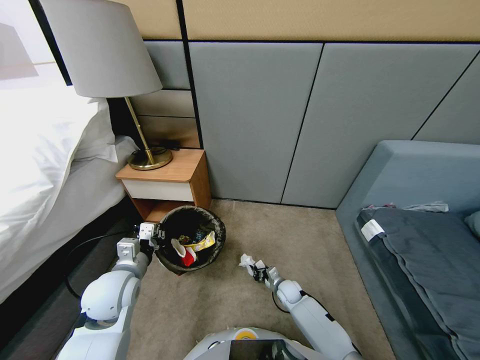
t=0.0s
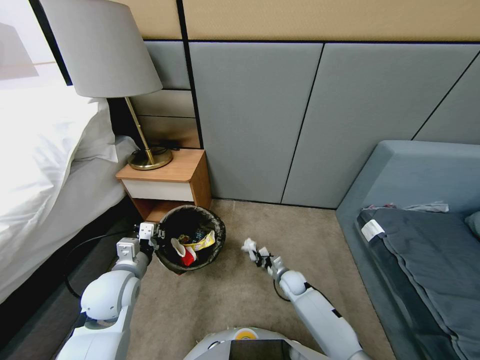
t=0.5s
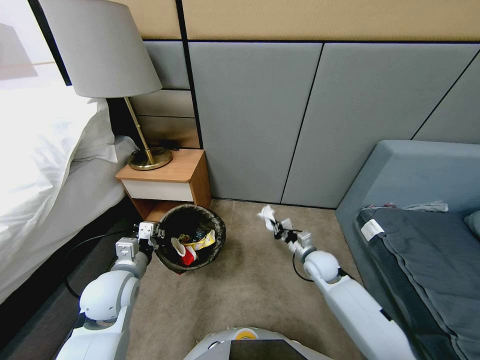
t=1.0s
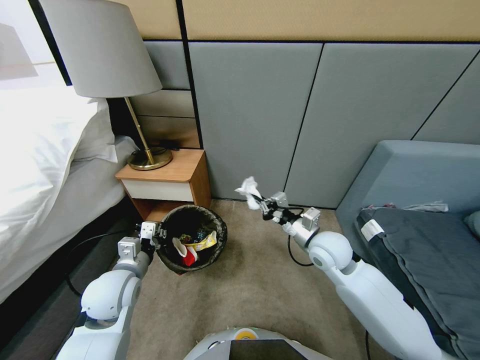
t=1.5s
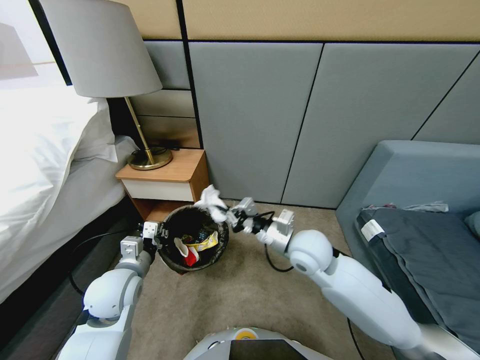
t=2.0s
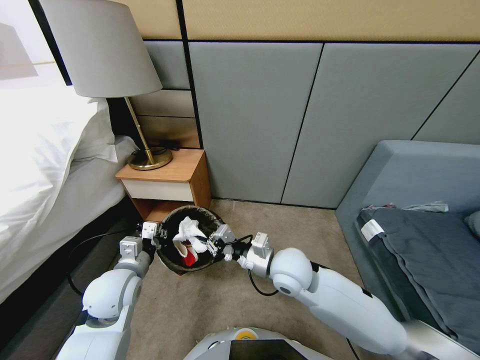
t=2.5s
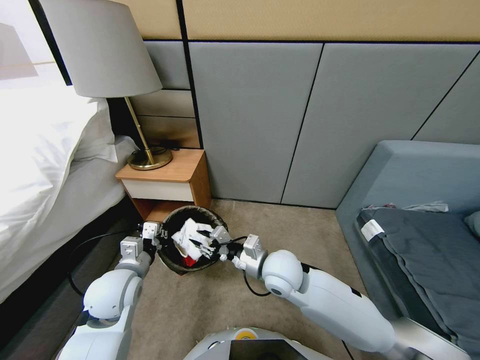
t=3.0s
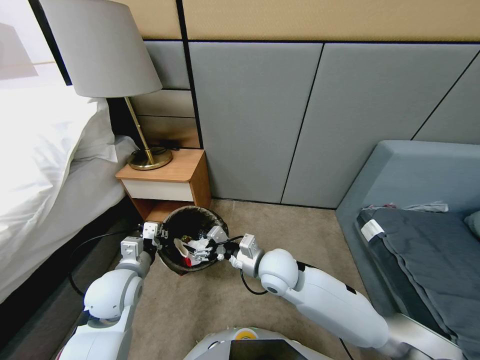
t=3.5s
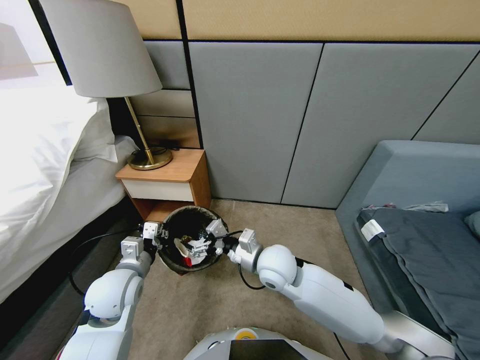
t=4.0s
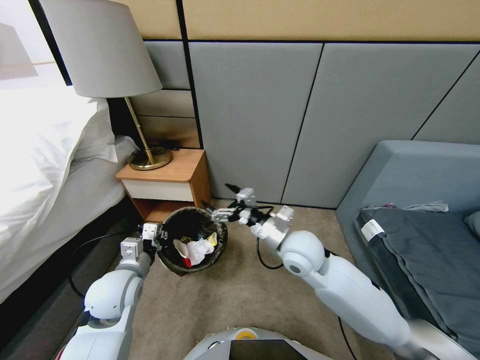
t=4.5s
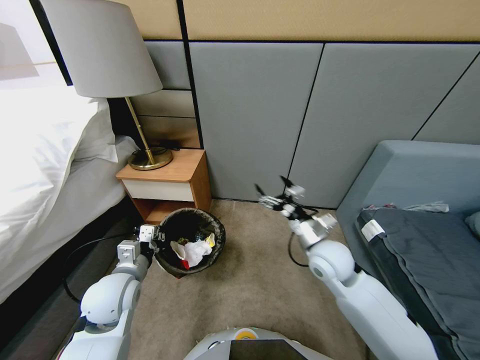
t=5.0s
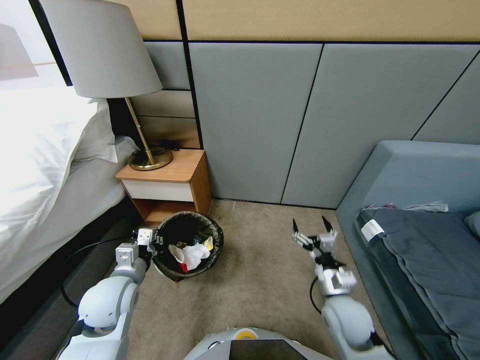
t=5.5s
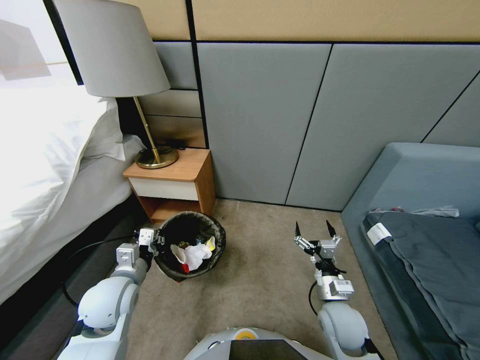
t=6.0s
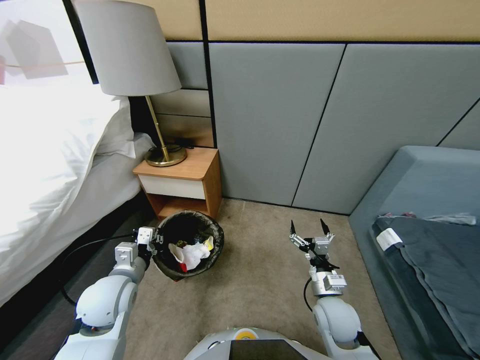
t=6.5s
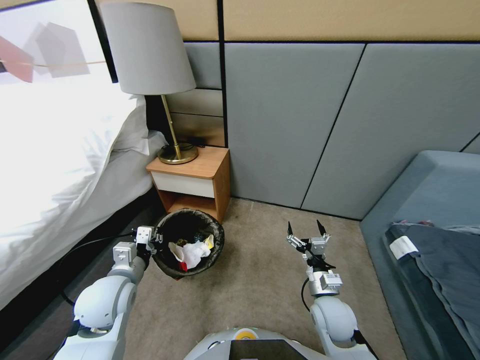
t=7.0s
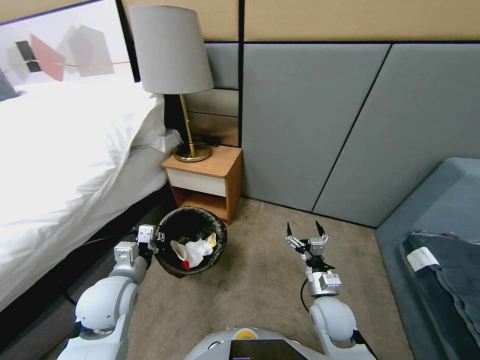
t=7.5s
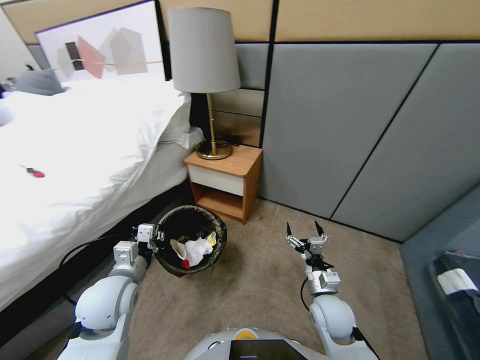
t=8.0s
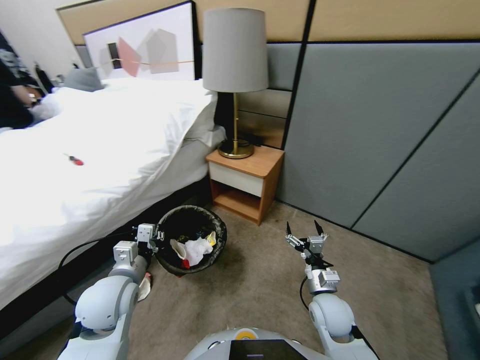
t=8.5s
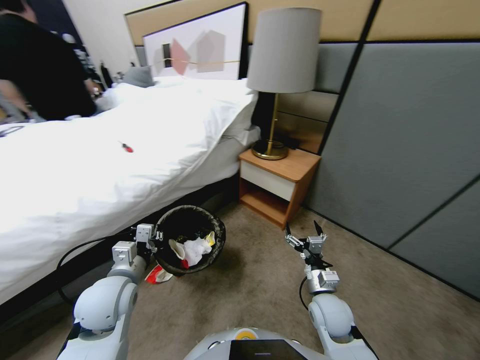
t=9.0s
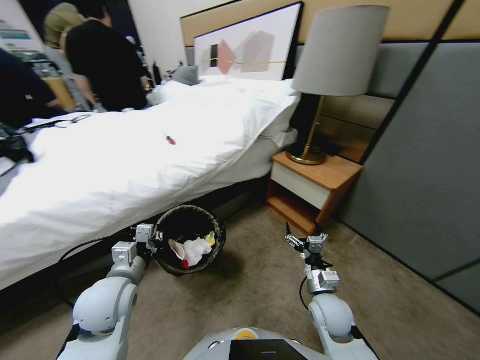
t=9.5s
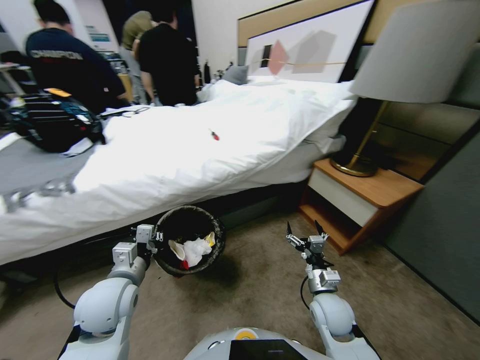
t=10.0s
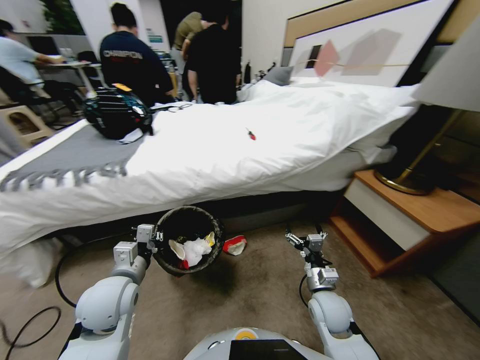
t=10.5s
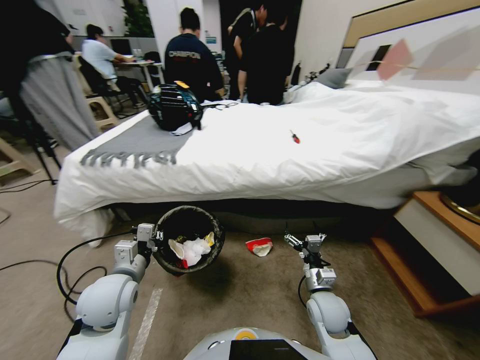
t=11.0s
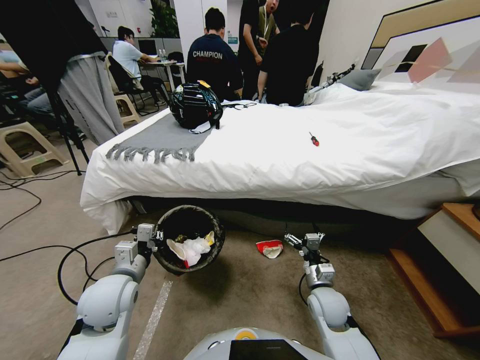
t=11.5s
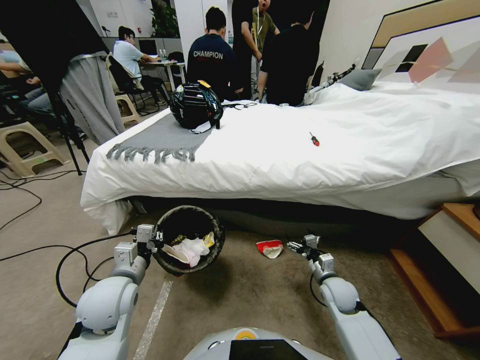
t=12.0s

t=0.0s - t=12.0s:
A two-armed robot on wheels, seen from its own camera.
Task of the whole recording: Pick up the trash bin, then pick up the garbage from the floor and place it into the trash bin.
t=0.0s - t=2.0s: The right gripper shifts about 35 cm upward.
t=2.0s - t=4.0s: The right gripper shifts by approximately 5 cm, and opens.
t=4.0s - t=6.0s: The right gripper travels to the right, downward and backward by some 20 cm.
t=10.0s - t=12.0s: The right gripper goes about 10 cm to the right and forward.

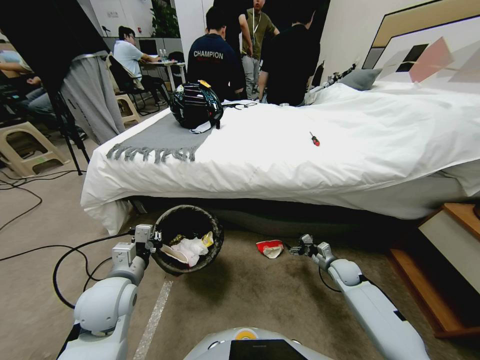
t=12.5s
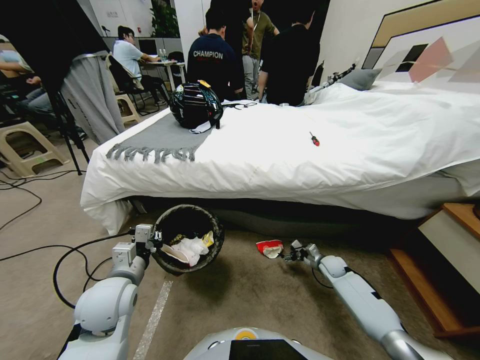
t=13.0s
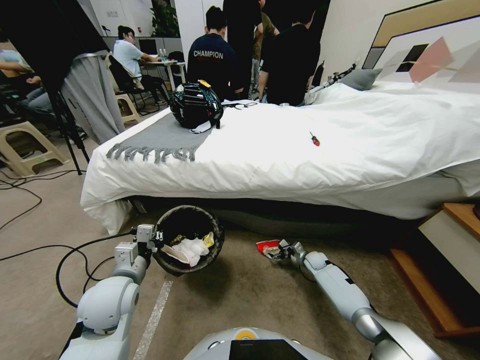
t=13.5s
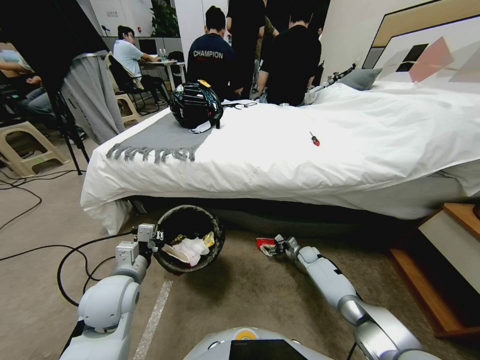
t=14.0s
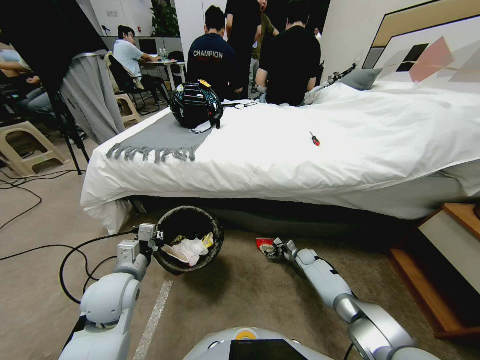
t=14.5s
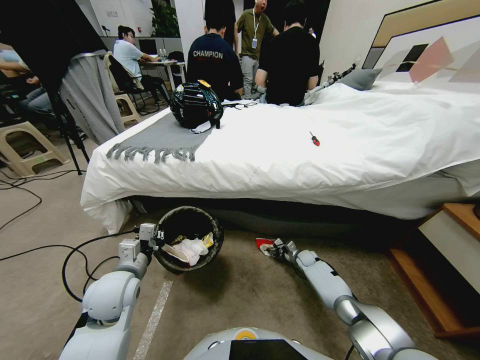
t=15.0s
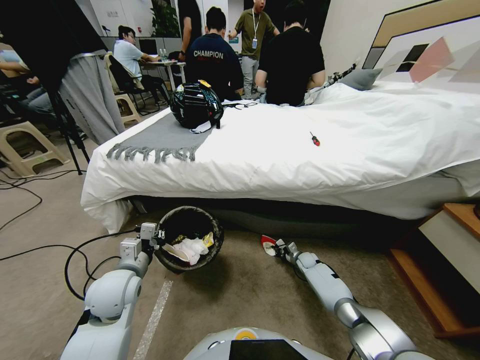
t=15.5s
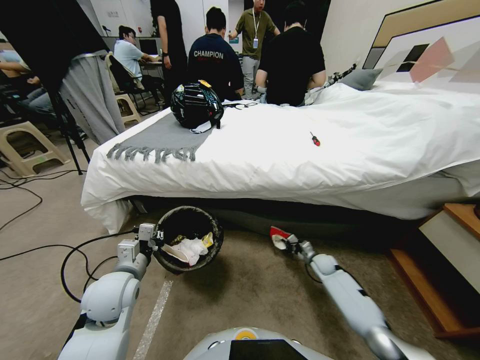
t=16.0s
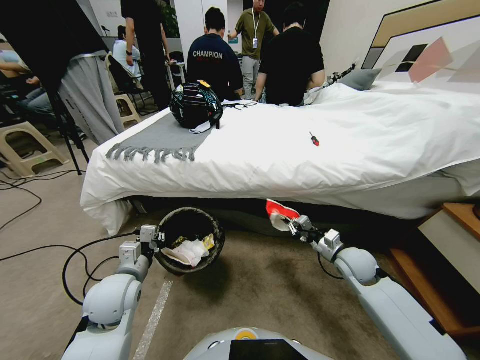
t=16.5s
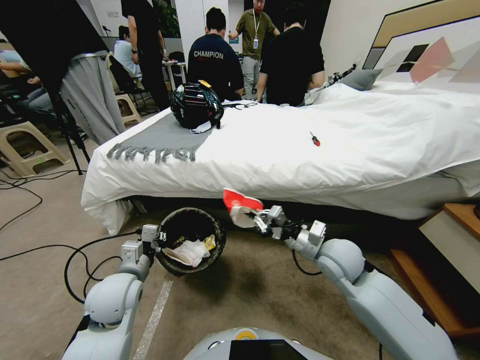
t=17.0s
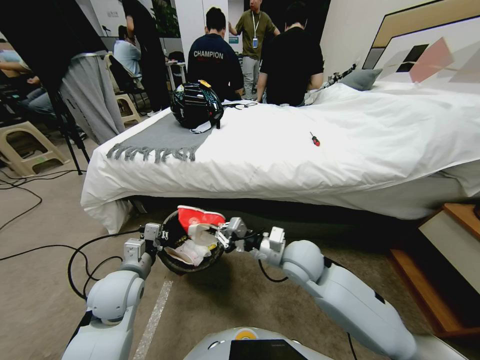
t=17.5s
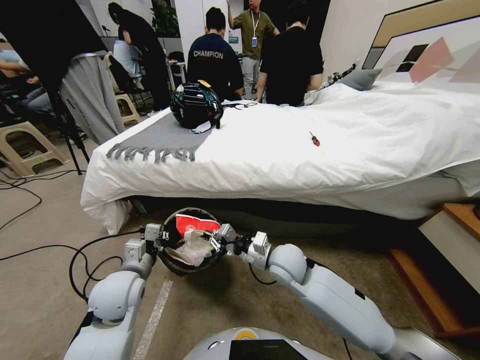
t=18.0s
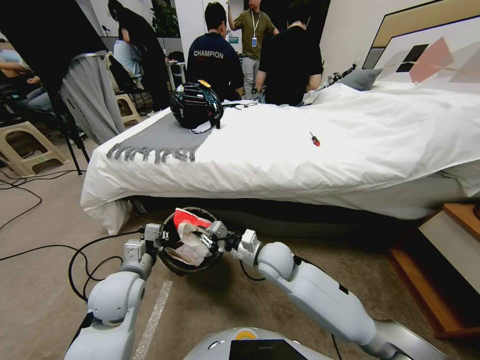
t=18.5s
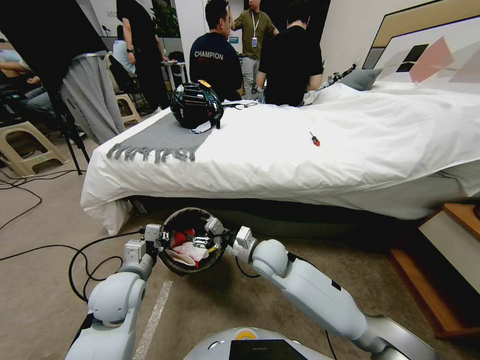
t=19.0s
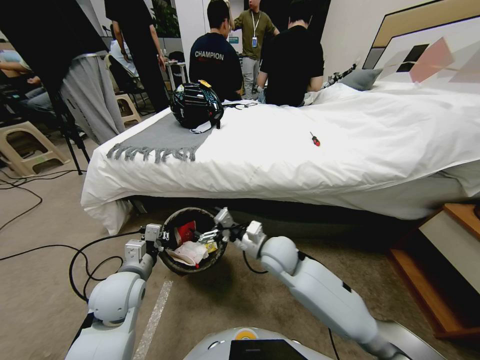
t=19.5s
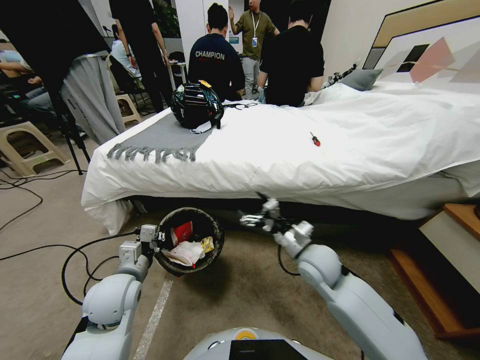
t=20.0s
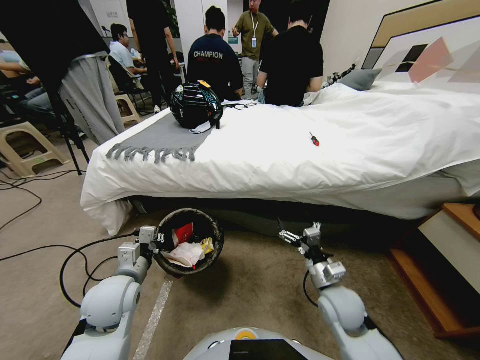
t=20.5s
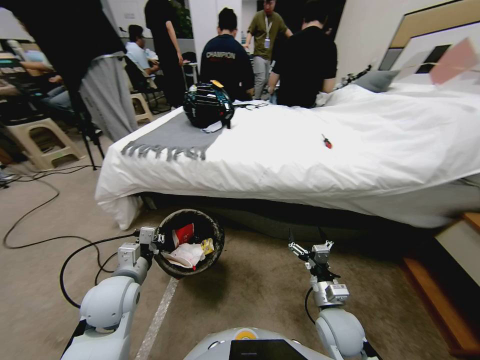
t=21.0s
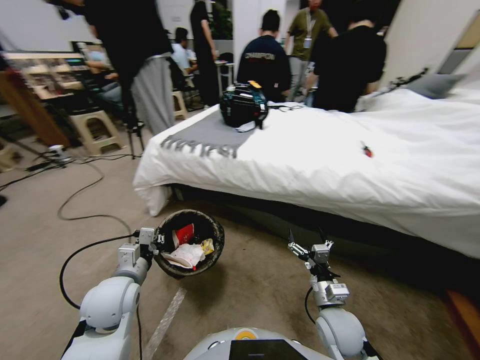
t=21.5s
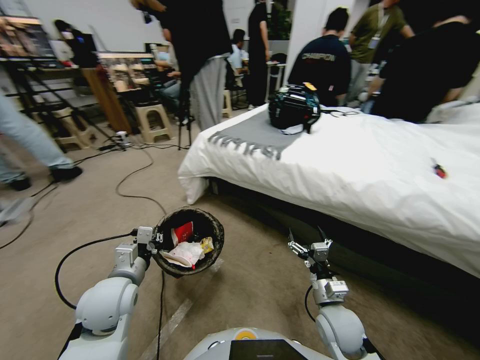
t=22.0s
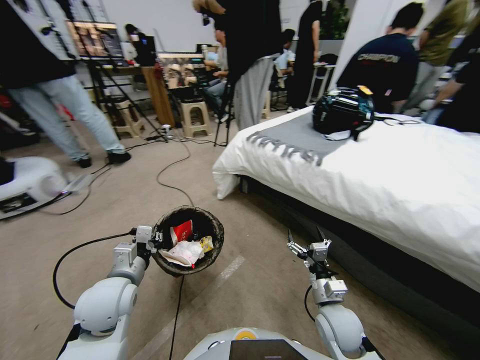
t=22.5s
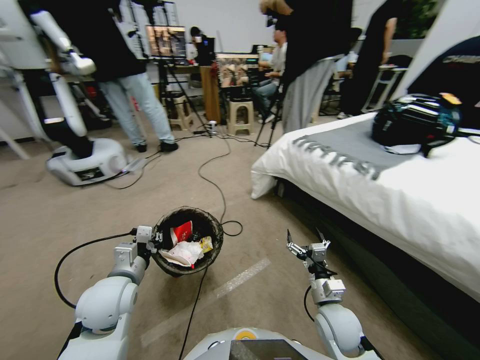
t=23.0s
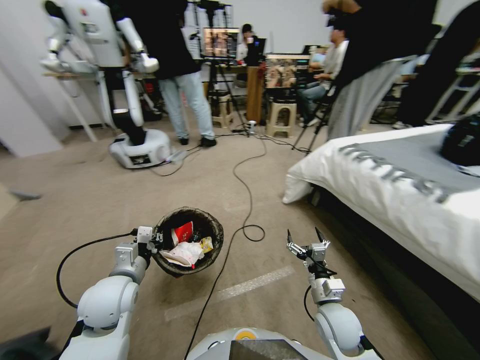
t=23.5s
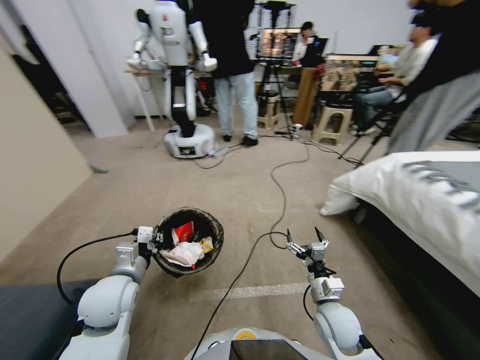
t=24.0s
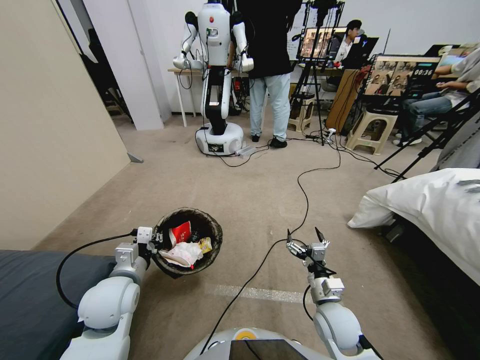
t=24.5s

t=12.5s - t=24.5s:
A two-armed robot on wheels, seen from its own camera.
Task of the whole recording: Pick up the trash bin, then pick up the garbage from the floor and place it into the trash bin.
t=12.5s - t=14.5s: The right gripper is displaced downward, forward and to the left by roughly 15 cm.
t=14.5s - t=16.5s: The right gripper goes roughly 30 cm upward and backward, and closes its fingers.
t=16.5s - t=18.5s: The right gripper goes some 25 cm to the left.
t=18.5s - t=20.5s: The right gripper goes about 20 cm to the right, backward and downward, and opens.

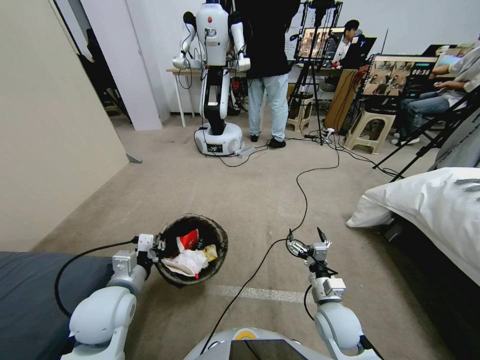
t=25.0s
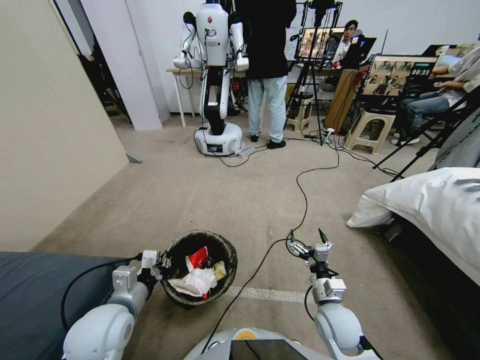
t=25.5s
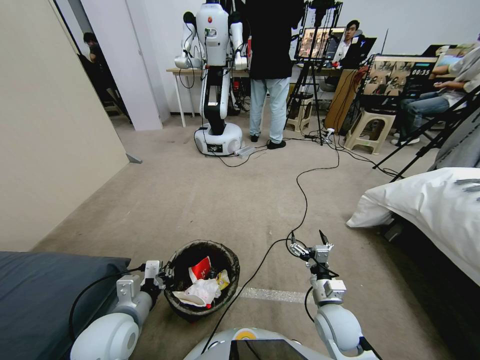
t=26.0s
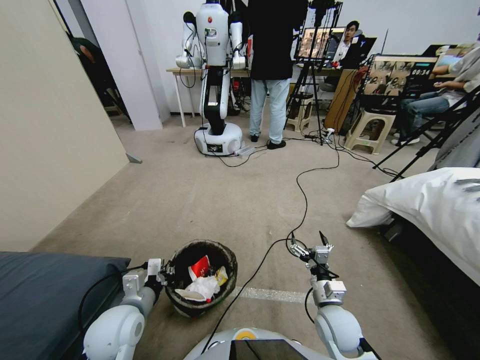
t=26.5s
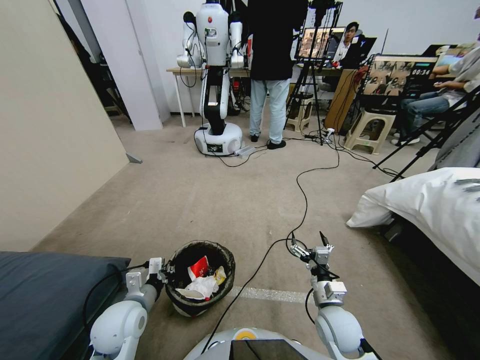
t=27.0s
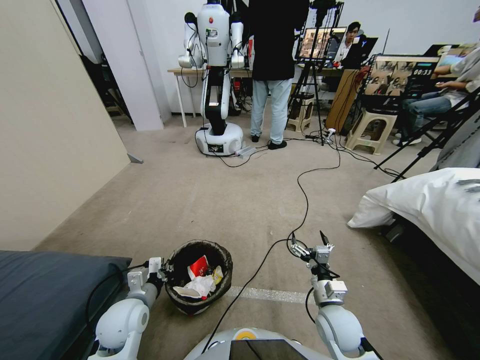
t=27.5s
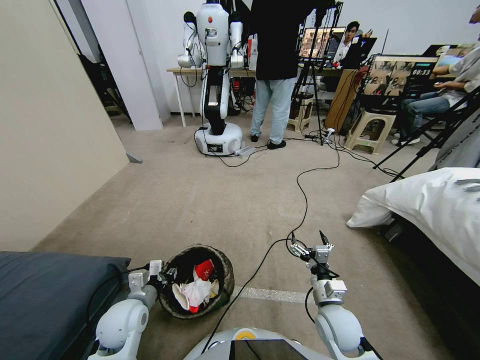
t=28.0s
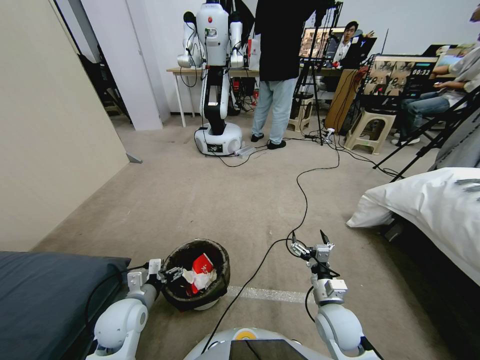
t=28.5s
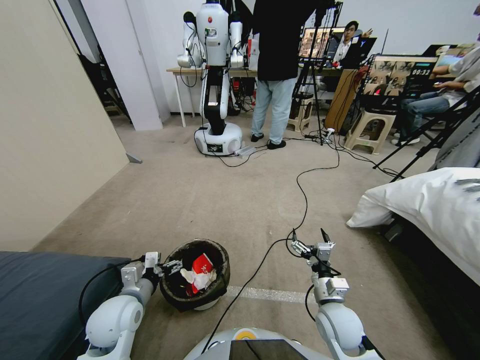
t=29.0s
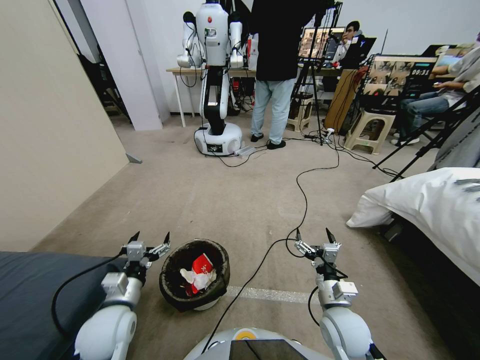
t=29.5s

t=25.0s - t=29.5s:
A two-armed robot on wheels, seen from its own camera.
Task of the whole recording: Pick up the trash bin, then pick up the garbage from the floor and place it into the trash bin.
t=25.0s - t=27.0s: The left gripper is displaced downward by approximately 5 cm.
t=27.0s - t=29.5s: The left gripper opens.
